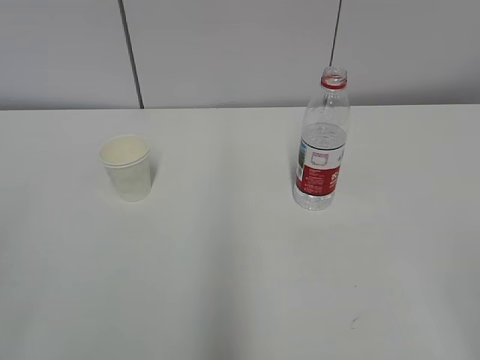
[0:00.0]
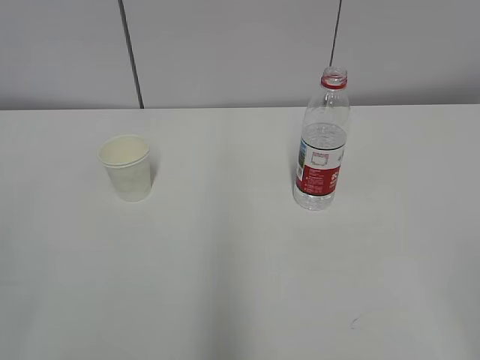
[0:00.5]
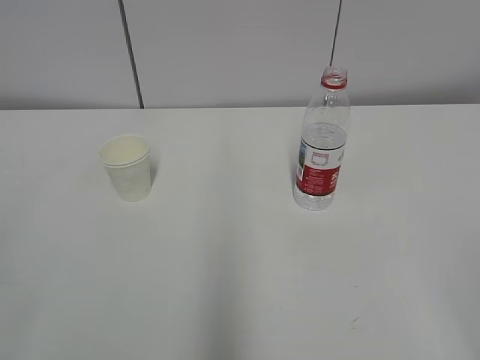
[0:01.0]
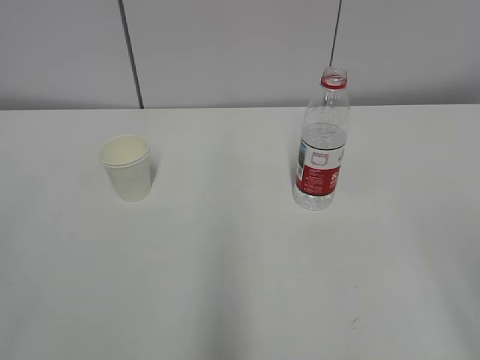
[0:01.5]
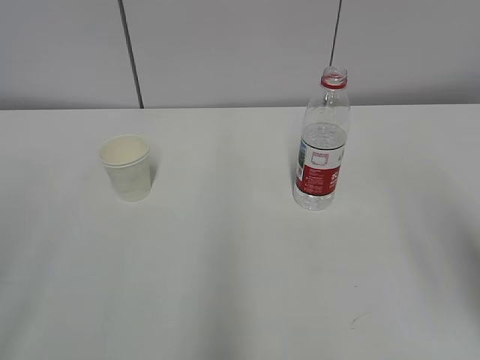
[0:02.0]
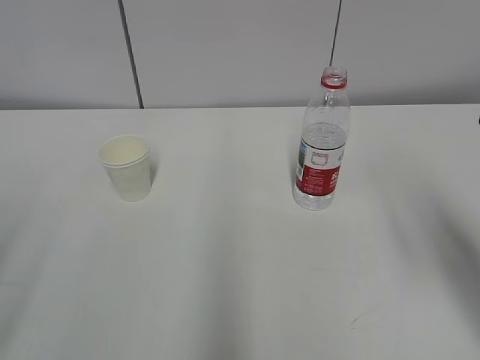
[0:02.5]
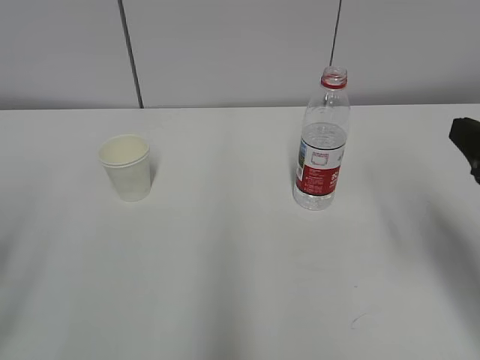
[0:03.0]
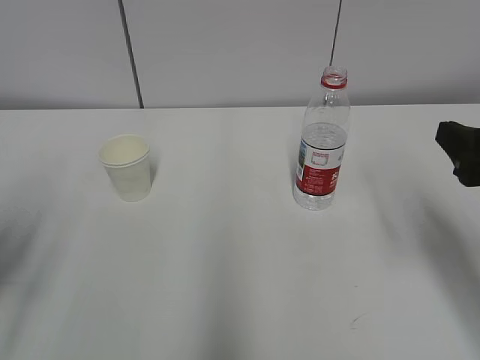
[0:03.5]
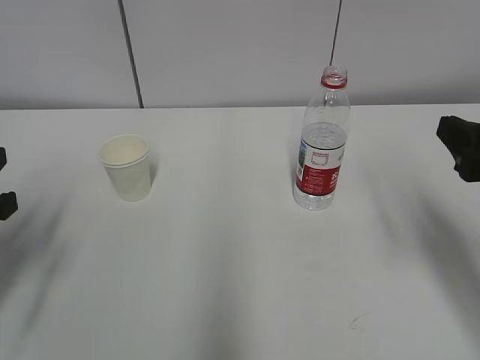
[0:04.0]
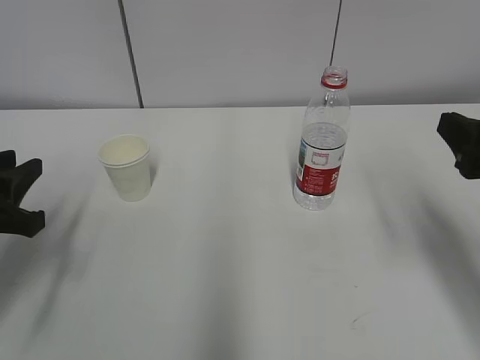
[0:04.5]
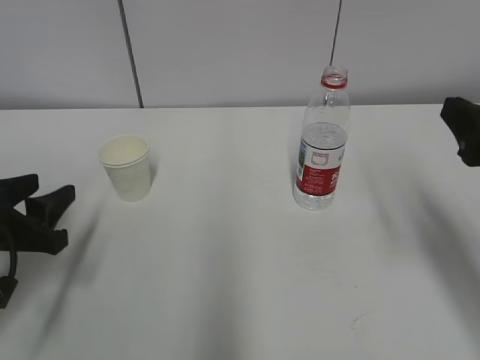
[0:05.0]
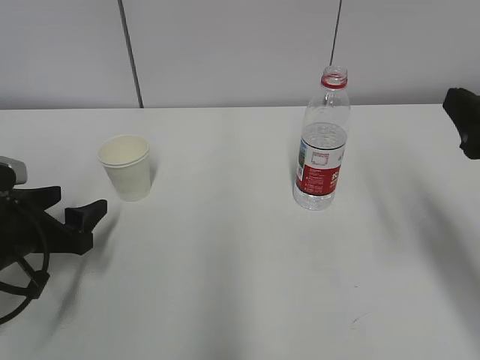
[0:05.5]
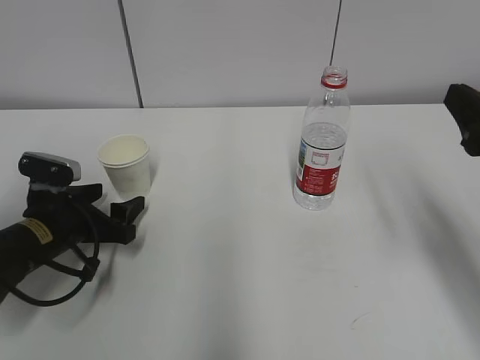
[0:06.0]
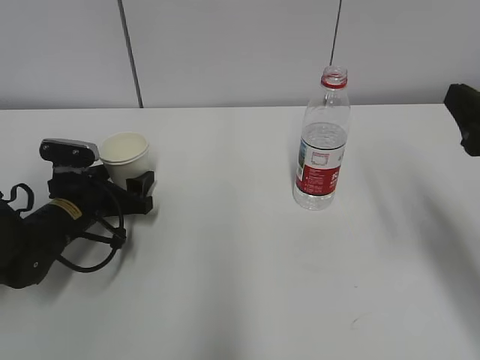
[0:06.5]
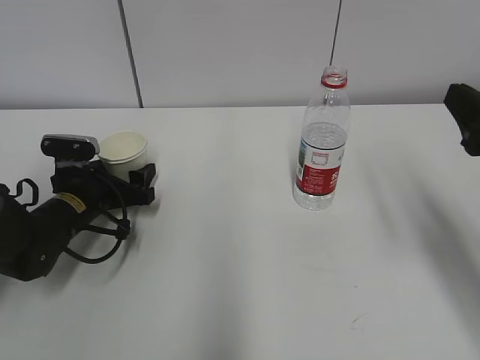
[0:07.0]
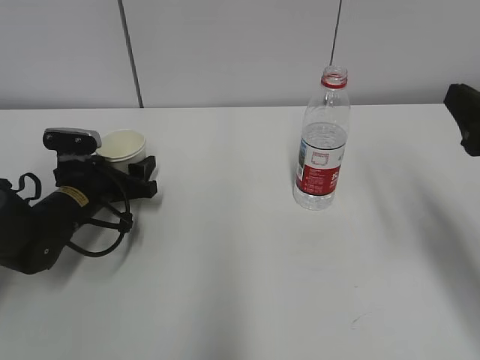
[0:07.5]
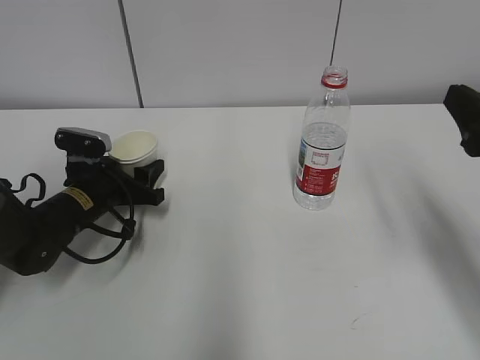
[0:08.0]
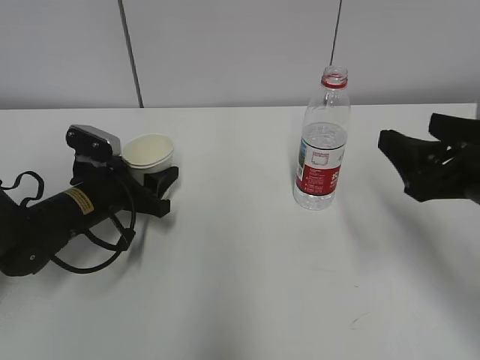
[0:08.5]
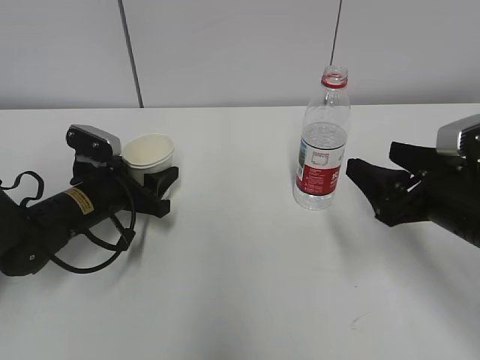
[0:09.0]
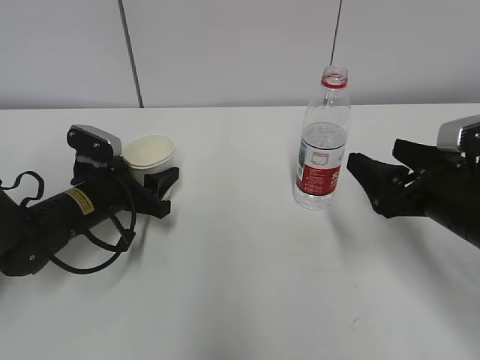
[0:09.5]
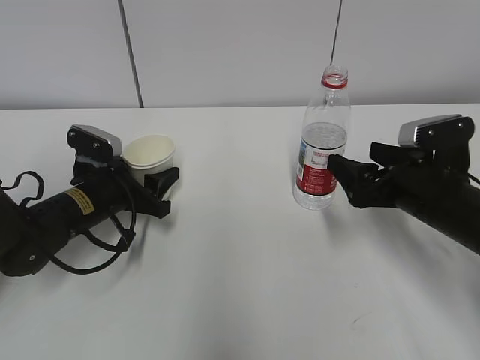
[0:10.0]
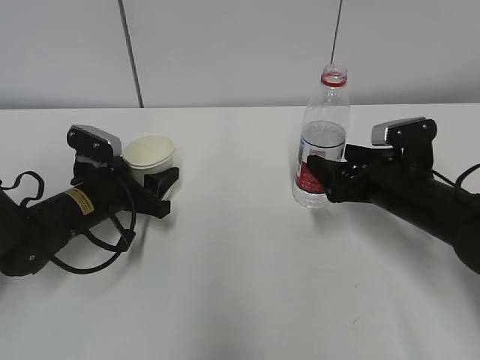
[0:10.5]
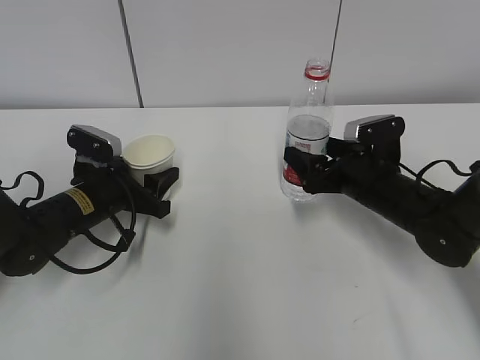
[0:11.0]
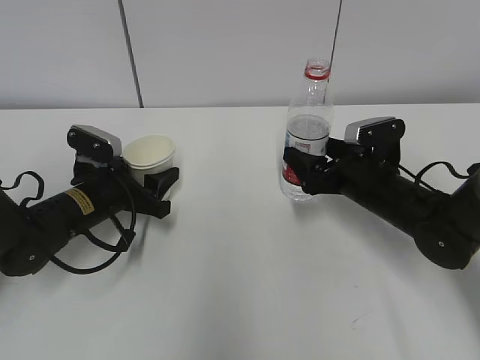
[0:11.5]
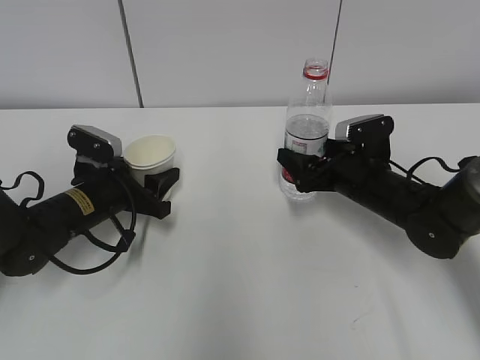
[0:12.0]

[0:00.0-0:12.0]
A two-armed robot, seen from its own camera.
Step, 0:00.0 to 0:06.5: Grab the paper cup with the left hand.
Step, 0:07.0 to 0:11.0: Grab the water bottle with the right hand.
0:02.0 to 0:04.0: The left gripper is displaced forward and downward by roughly 20 cm. Meanwhile the right gripper travels forward and downward by roughly 15 cm.
0:04.0 to 0:06.0: The left gripper shifts some 15 cm downward, forward and to the right, and opens its fingers.
0:06.0 to 0:08.0: The left gripper moves forward, approximately 5 cm, and closes its fingers.
0:08.0 to 0:10.0: The right gripper shifts roughly 15 cm downward and forward.
0:10.0 to 0:12.0: The right gripper is displaced forward by approximately 10 cm.

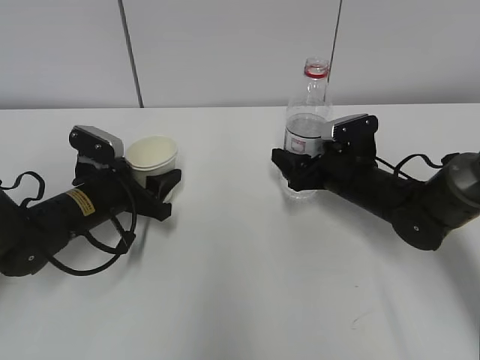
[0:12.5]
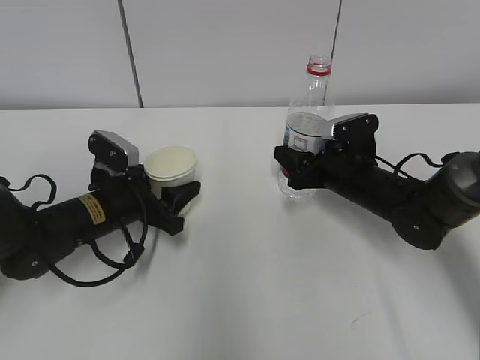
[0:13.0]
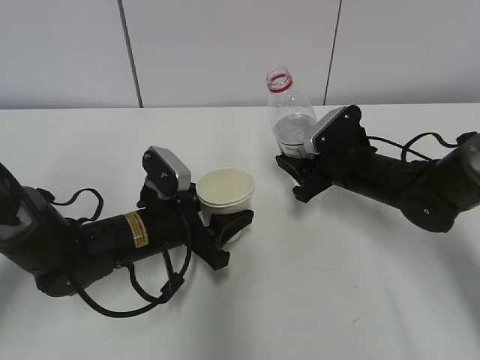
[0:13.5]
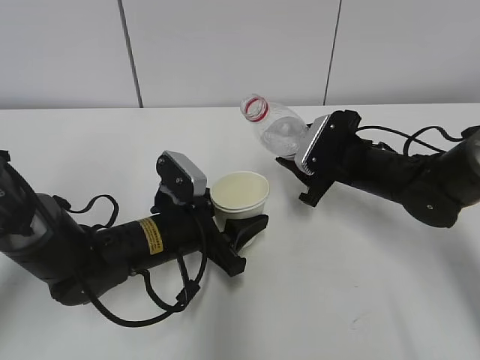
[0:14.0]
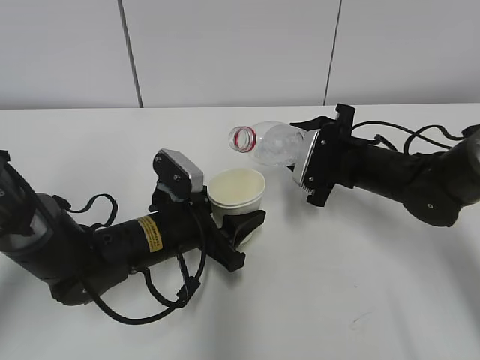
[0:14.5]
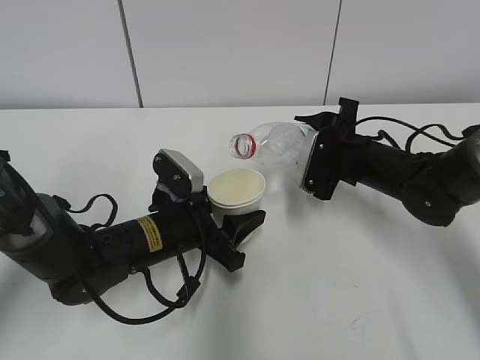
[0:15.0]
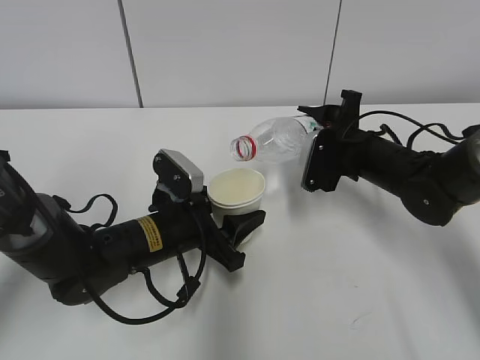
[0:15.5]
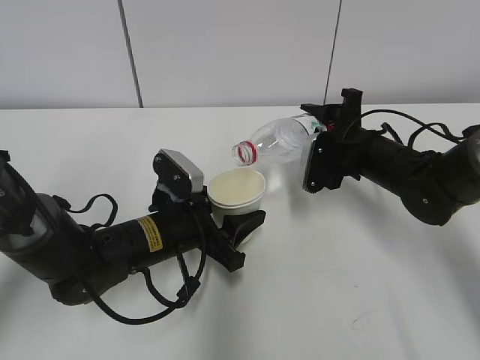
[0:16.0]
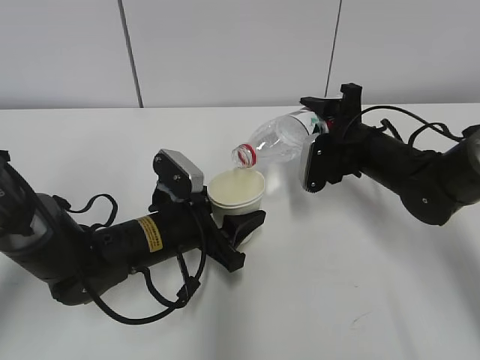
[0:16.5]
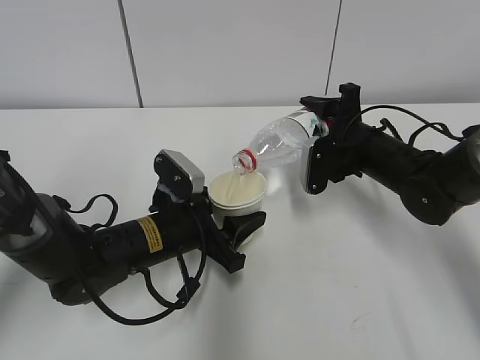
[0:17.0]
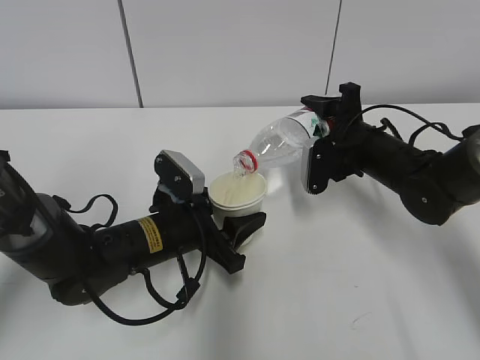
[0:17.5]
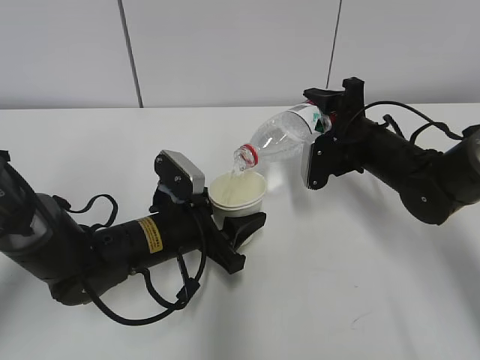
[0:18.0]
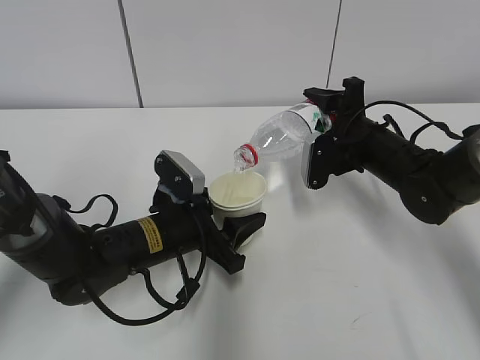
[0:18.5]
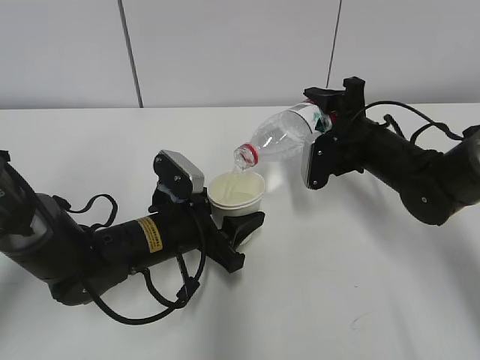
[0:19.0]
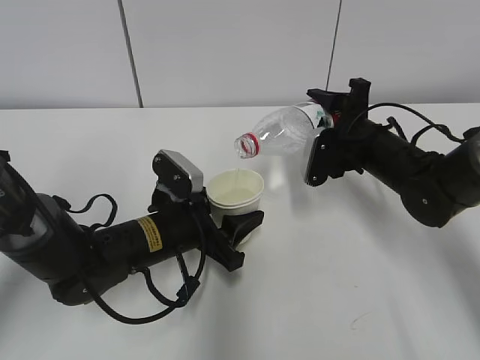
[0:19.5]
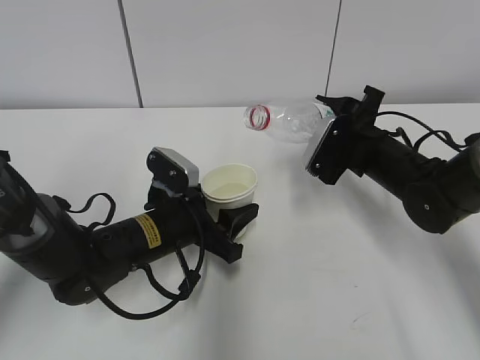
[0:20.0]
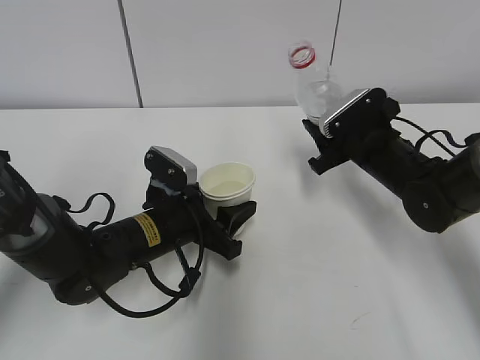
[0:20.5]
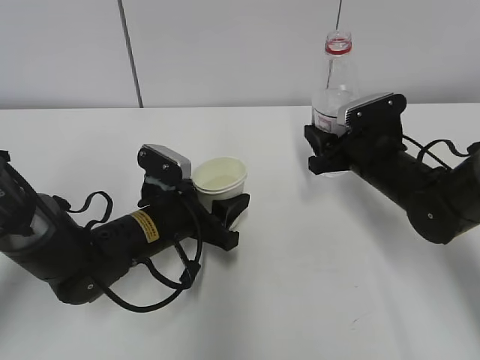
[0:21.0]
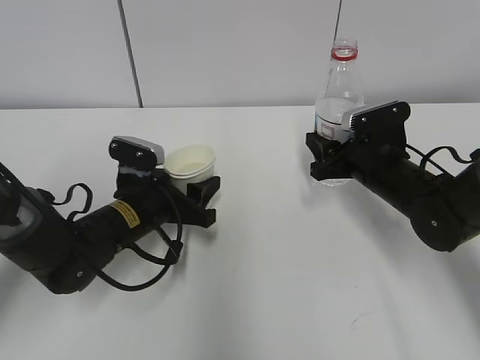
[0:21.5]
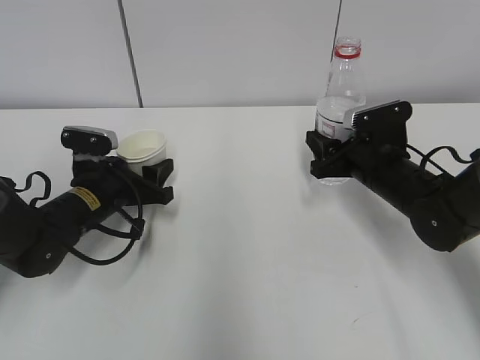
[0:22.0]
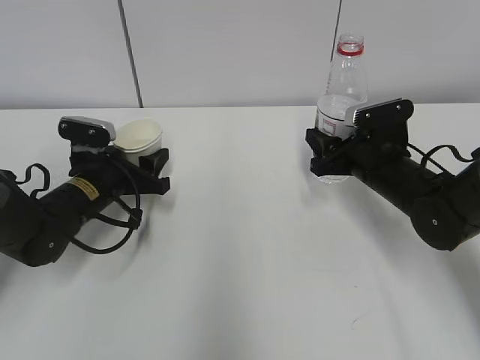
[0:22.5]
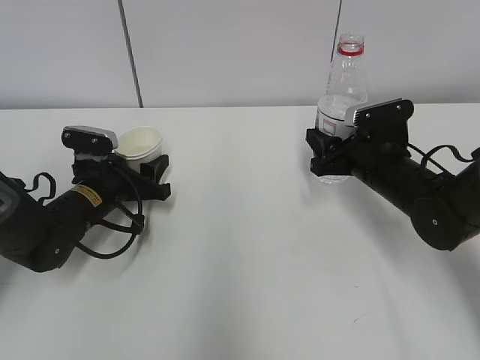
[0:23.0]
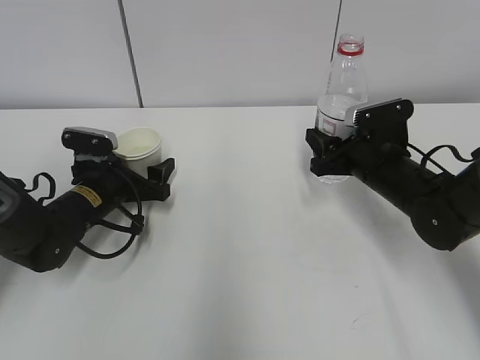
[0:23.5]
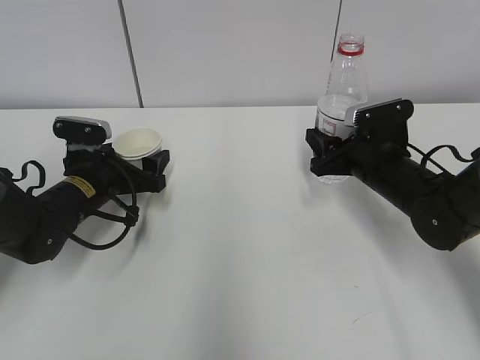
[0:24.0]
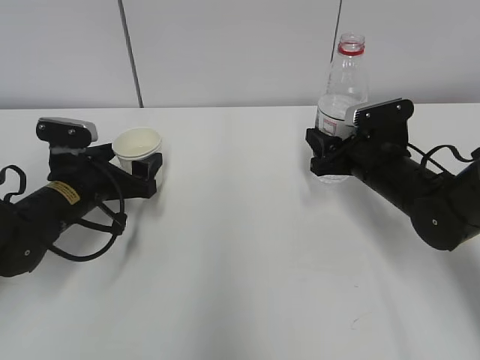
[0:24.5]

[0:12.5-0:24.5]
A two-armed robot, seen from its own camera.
Step, 0:14.0 to 0:16.0: Pour water with the right hand.
Step, 0:16.5 to 0:17.0: Collect water with the right hand.
Step, 0:17.5 to 0:19.0: Place the paper cup with the left hand.
Step, 0:19.5 to 0:22.5: Place the water bottle with the right hand.
0:12.5 to 0:14.5: The right gripper closes. Meanwhile the left gripper is displaced to the right and backward by about 10 cm.
0:16.5 to 0:18.5: The grippers stay close to where they were, moving slightly.
0:20.5 to 0:22.5: The left gripper travels to the left and forward by approximately 10 cm.
0:22.5 to 0:24.5: The left gripper opens.

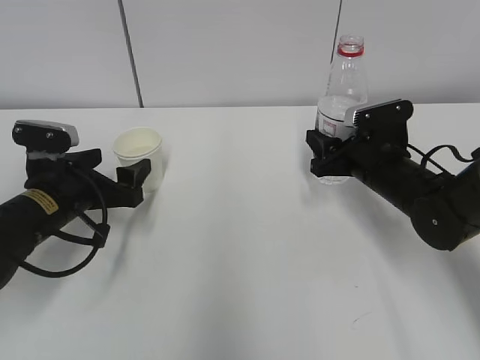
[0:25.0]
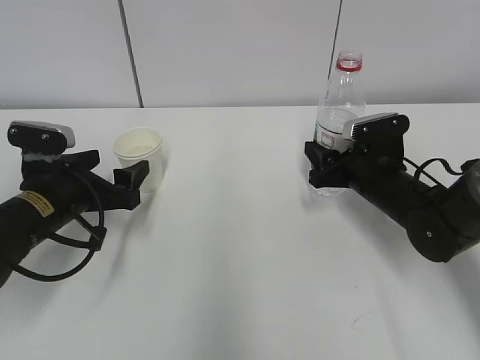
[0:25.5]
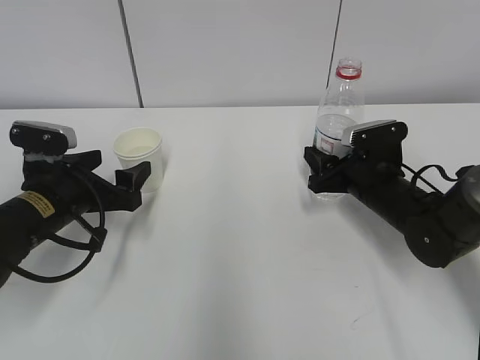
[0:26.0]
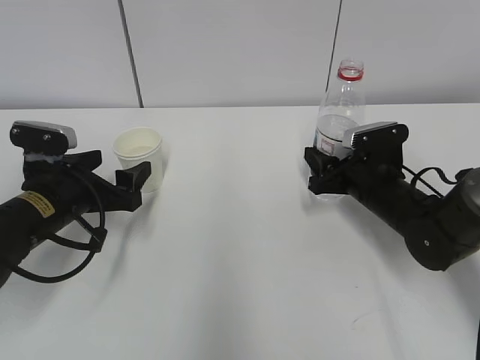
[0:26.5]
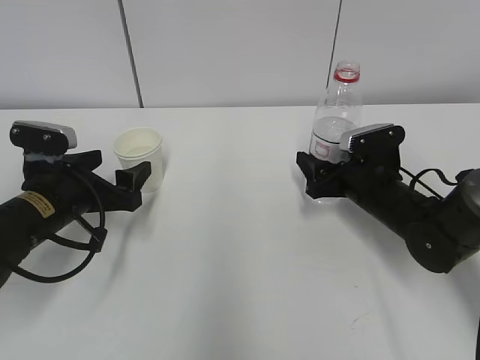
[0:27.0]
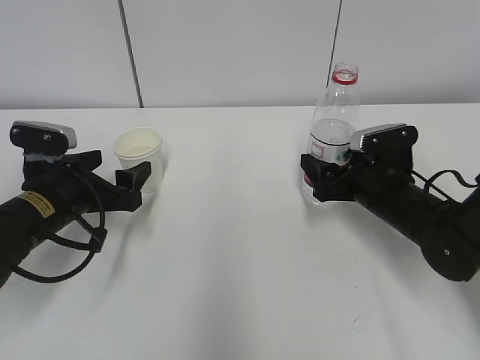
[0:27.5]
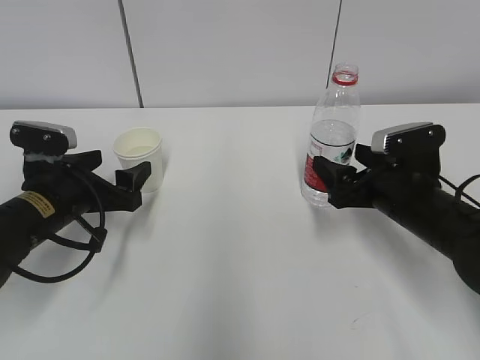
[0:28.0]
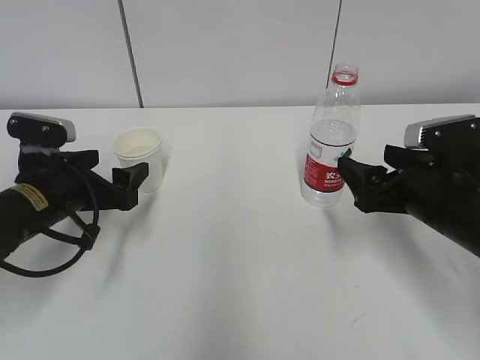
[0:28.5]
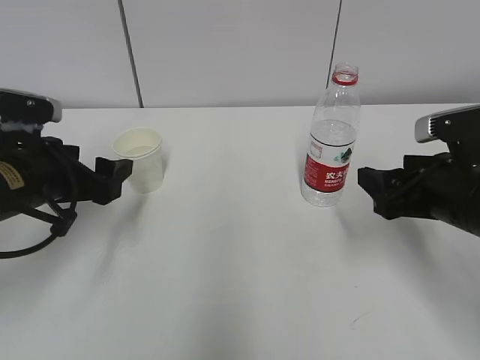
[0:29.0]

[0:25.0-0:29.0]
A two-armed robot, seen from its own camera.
0:25.0 to 0:27.0: The right gripper opens.
0:27.0 to 0:29.0: The right gripper moves backward and upward, some 15 cm; the left gripper moves upward, some 5 cm.
